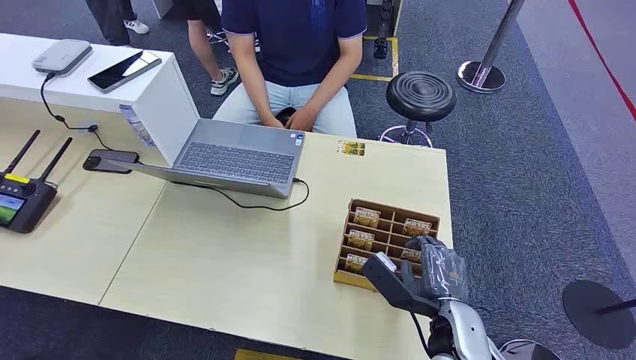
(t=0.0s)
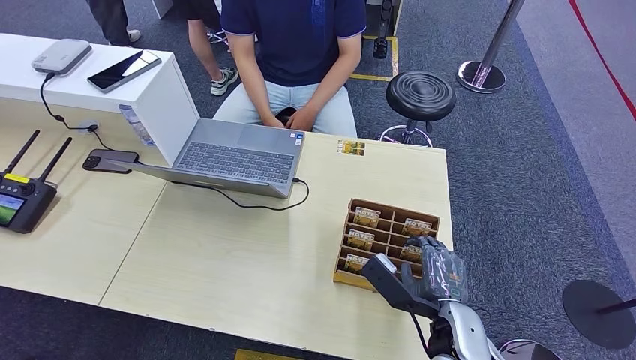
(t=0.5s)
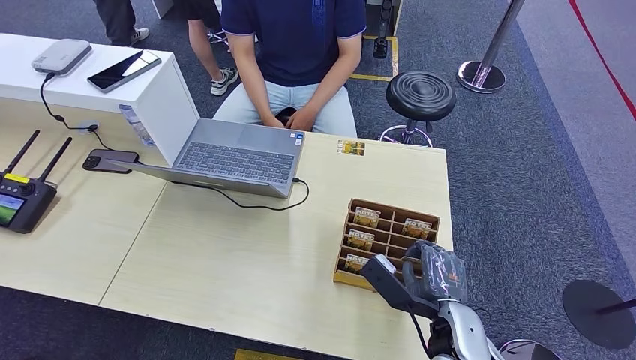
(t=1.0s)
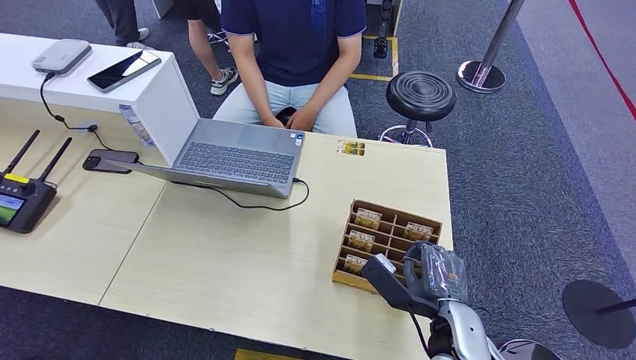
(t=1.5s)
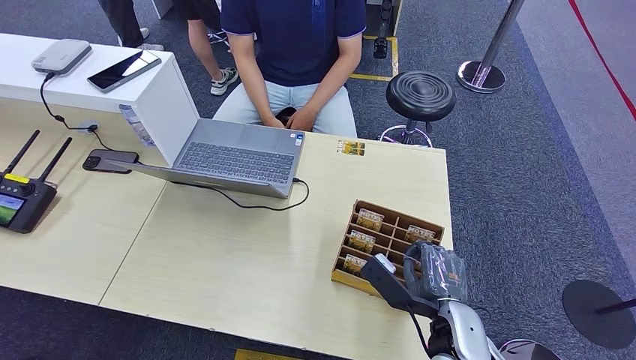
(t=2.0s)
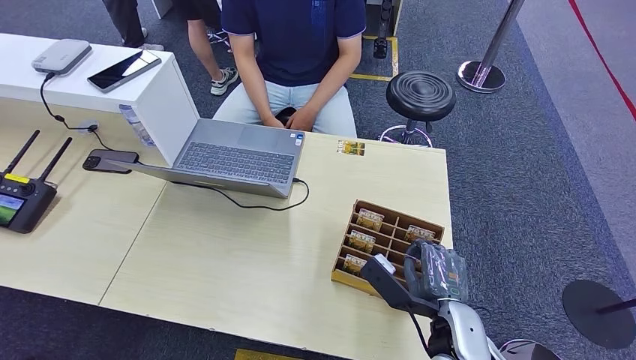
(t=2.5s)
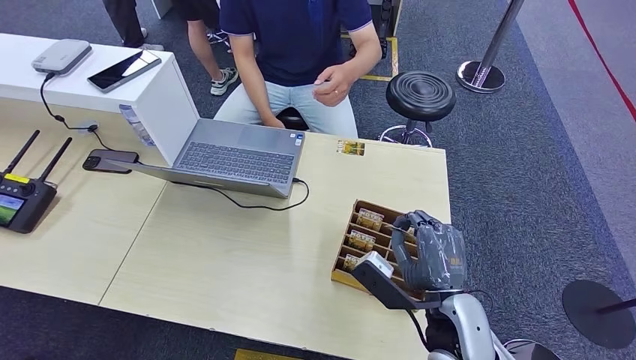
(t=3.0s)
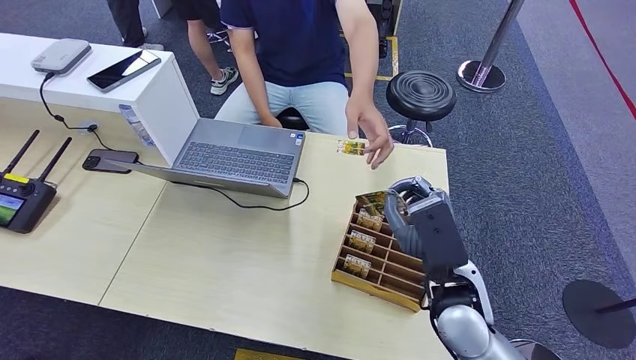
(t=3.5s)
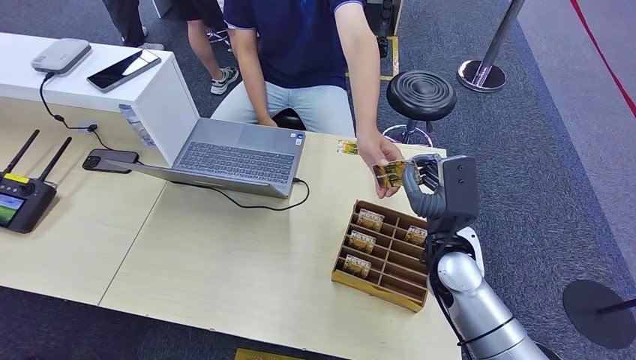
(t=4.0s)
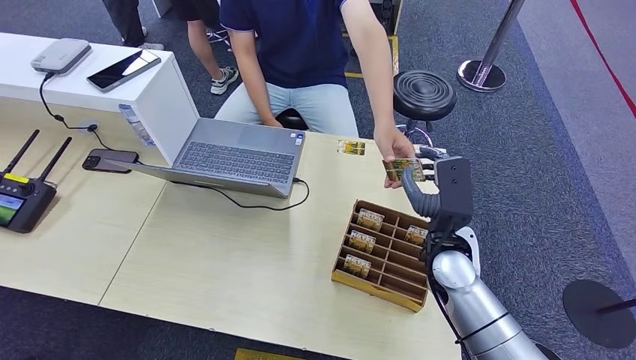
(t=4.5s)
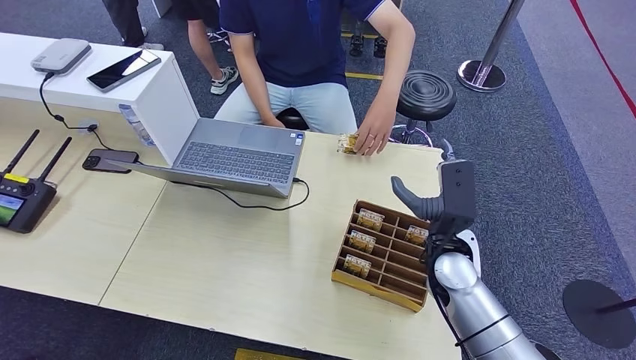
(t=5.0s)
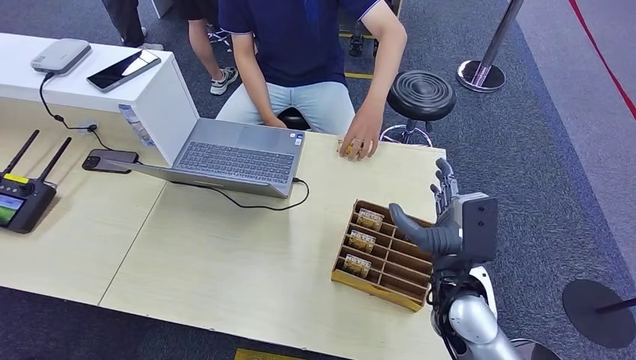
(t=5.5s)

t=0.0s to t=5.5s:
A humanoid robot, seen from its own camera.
Step, t=0.0s to t=3.5s: Pick up the room card from the card holder.
Step, t=4.0s to t=5.0s: Hand the room card to the target.
t=2.0s to t=3.5s: The right hand shifts about 10 cm upward.
t=3.5s to t=5.5s: The right hand reaches about 10 cm forward, then returns.
